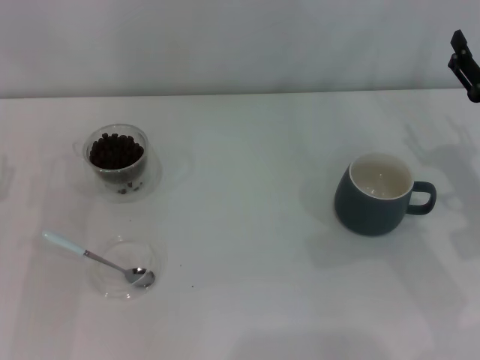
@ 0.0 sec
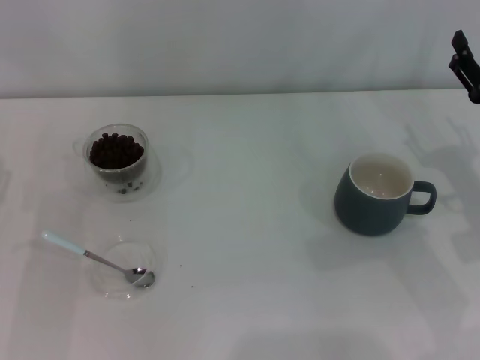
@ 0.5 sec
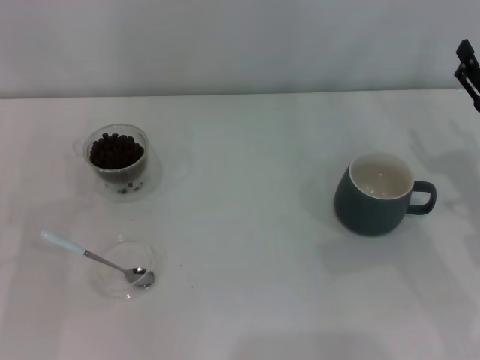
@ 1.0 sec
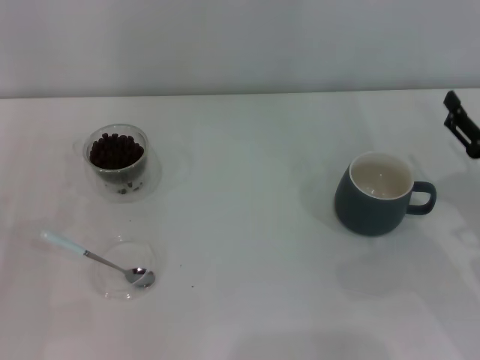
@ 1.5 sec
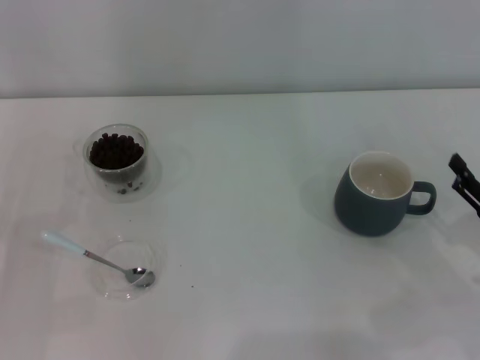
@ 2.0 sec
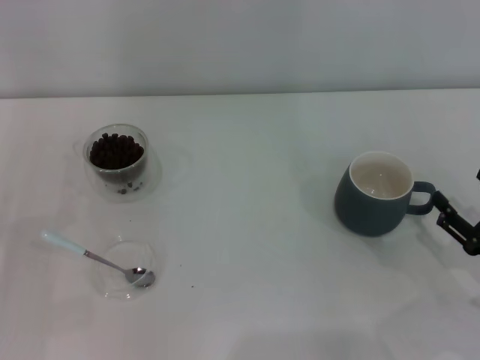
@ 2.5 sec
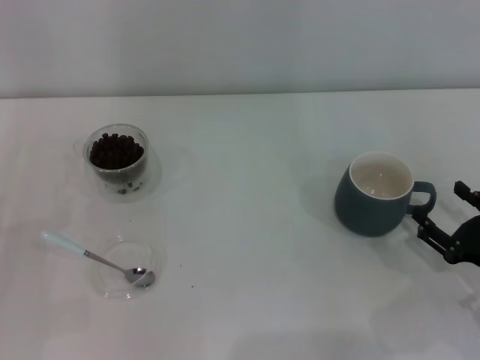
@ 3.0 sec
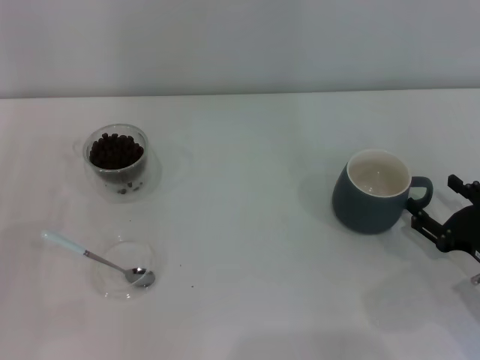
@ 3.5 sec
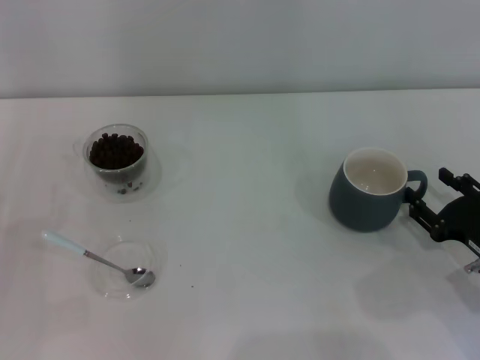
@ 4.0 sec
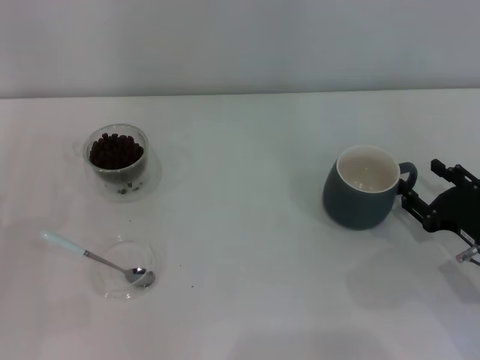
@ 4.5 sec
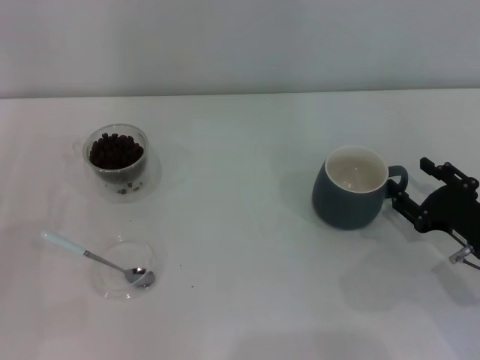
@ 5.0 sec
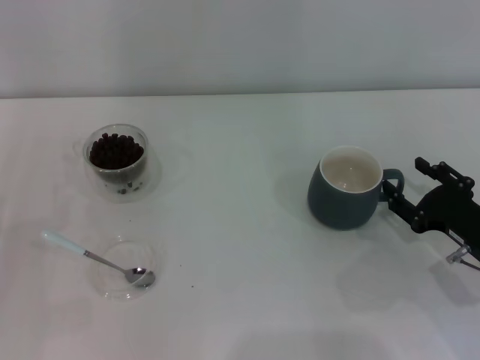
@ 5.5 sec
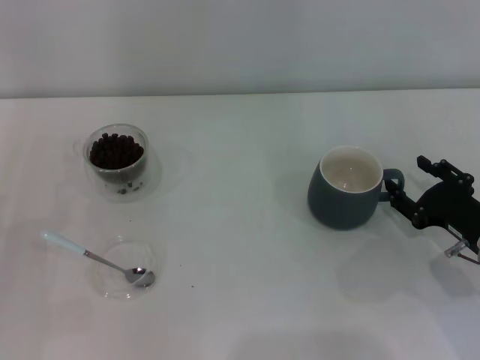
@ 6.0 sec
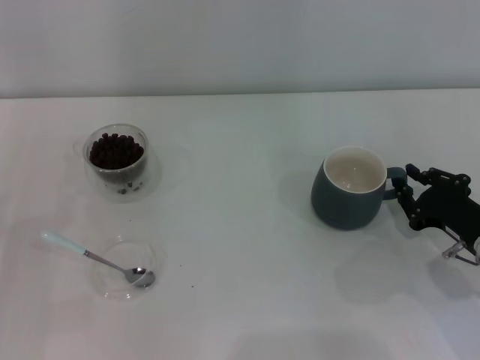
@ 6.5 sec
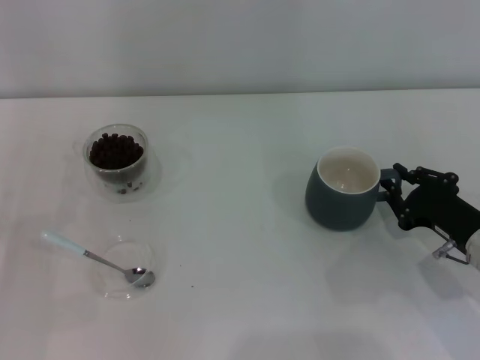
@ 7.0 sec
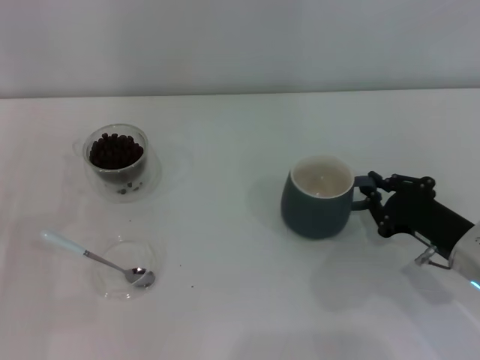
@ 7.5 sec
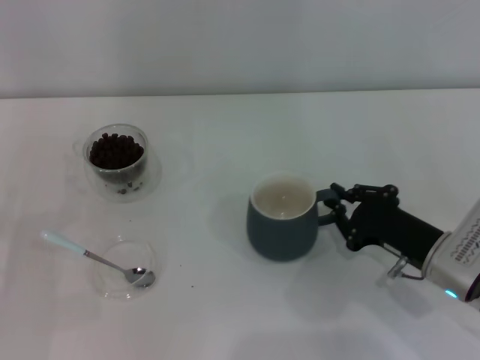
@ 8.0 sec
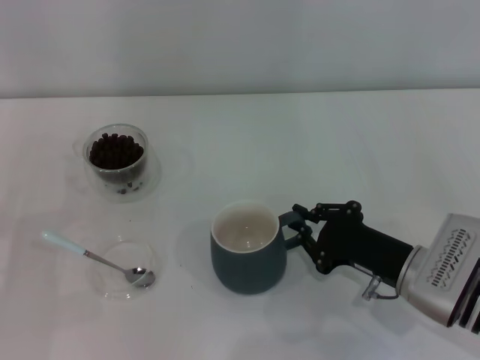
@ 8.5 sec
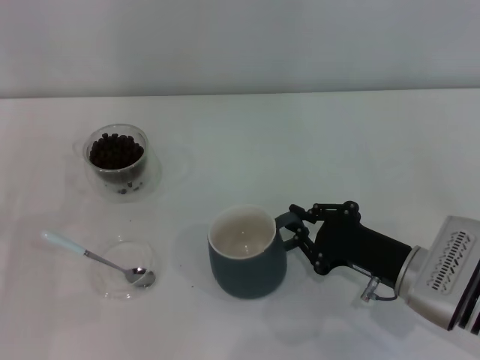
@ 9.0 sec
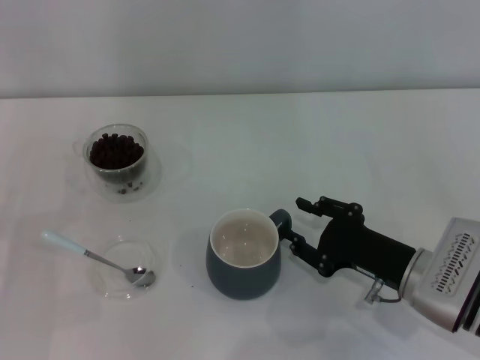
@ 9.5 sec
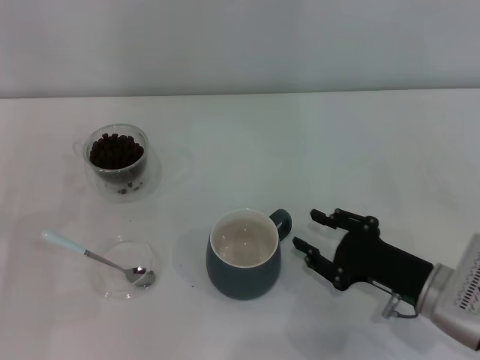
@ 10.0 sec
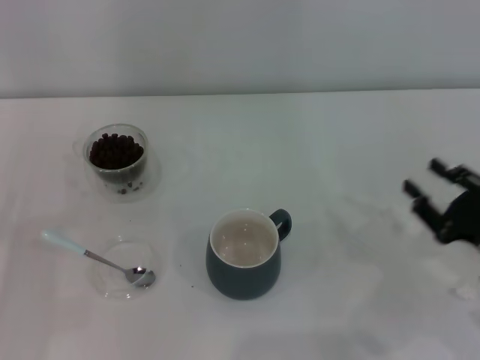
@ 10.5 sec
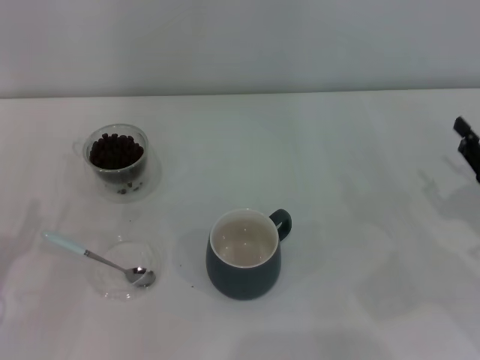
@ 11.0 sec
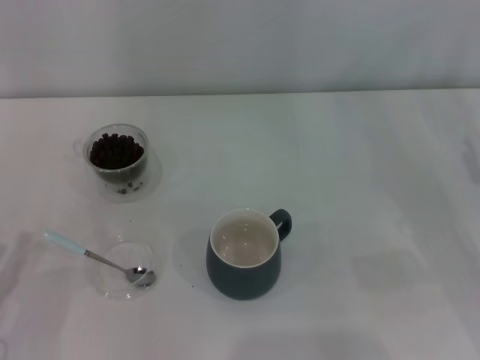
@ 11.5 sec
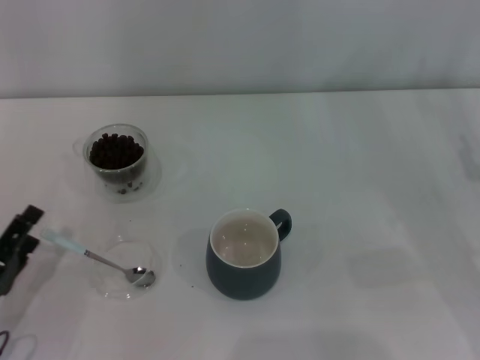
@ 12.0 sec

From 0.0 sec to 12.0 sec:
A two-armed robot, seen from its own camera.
Task of the whole recording: Use a blue spoon to take out the coffee beans from the glass and pour them into the gray cup.
Step, from 0.0 sec to 10.0 sec: Move the cup to the center of view with the left gripper.
From 0.0 sec to 2.0 sec: The right gripper goes approximately 10 cm backward.
From 2.0 sec to 4.0 sec: The grippers move only a little.
From 4.0 sec to 6.0 sec: There are only small adjustments of the grippers.
From 6.0 sec to 8.0 sec: The right gripper travels to the left by approximately 5 cm, and closes.
From 8.0 sec to 10.0 sec: The right gripper opens.
From 10.0 sec to 12.0 sec: The right gripper moves to the right and upward, roughly 15 cm; the left gripper changes place by some 10 cm.

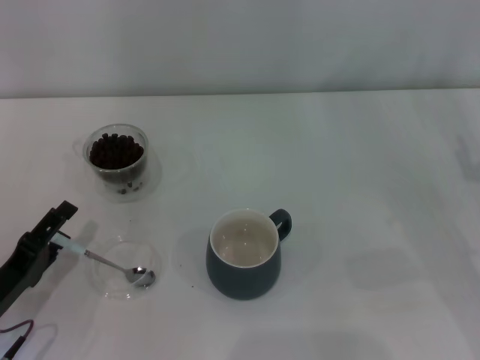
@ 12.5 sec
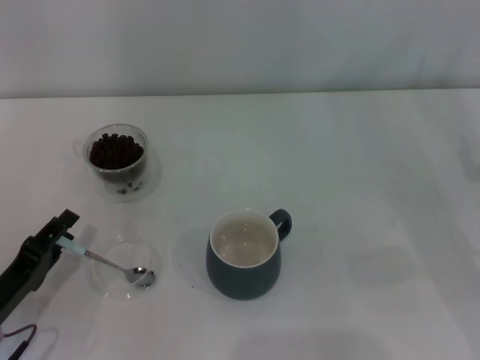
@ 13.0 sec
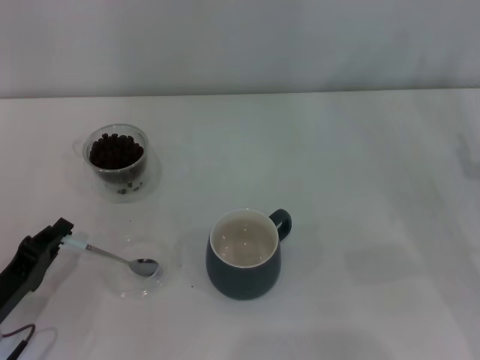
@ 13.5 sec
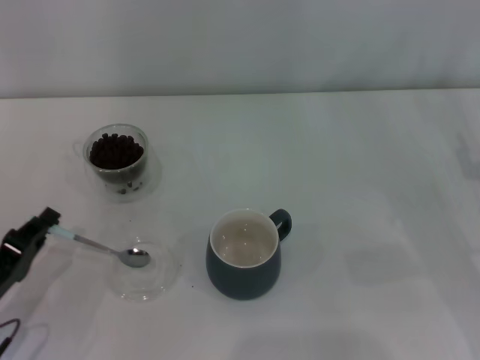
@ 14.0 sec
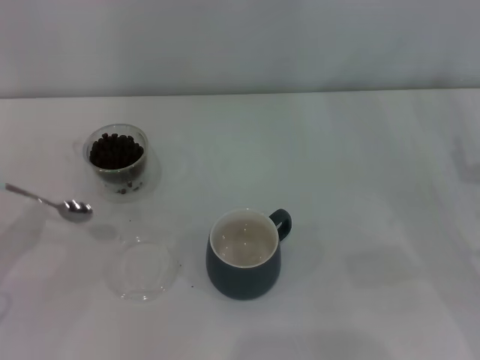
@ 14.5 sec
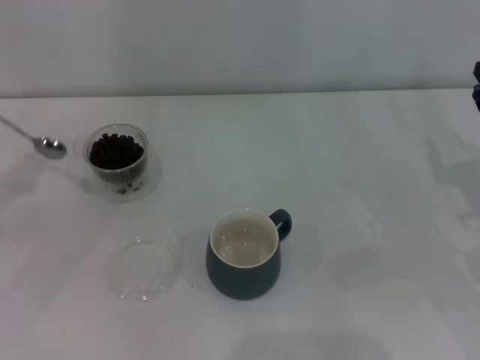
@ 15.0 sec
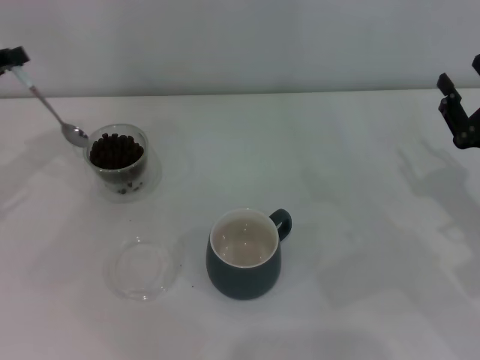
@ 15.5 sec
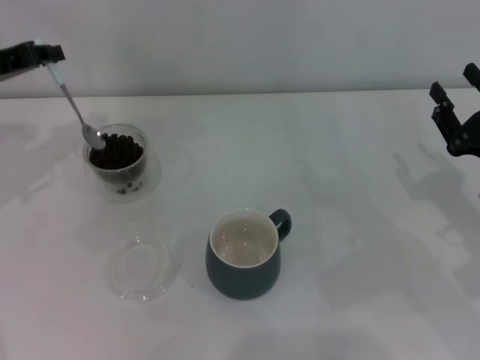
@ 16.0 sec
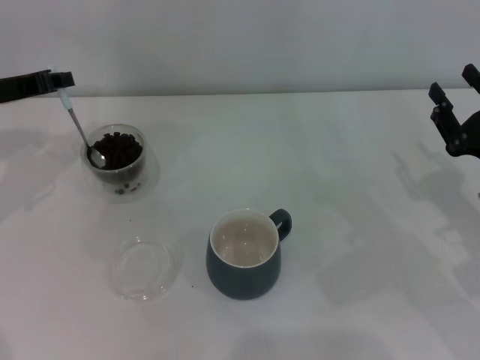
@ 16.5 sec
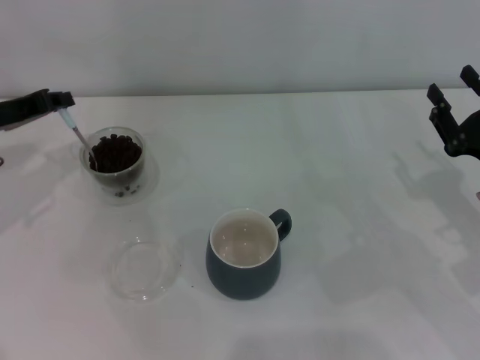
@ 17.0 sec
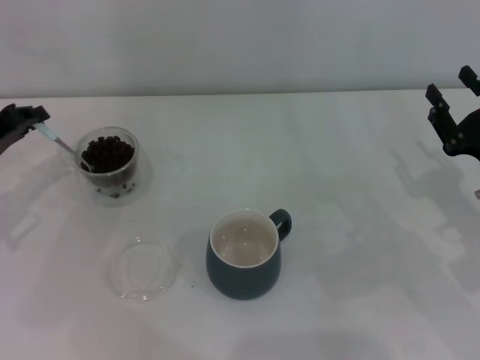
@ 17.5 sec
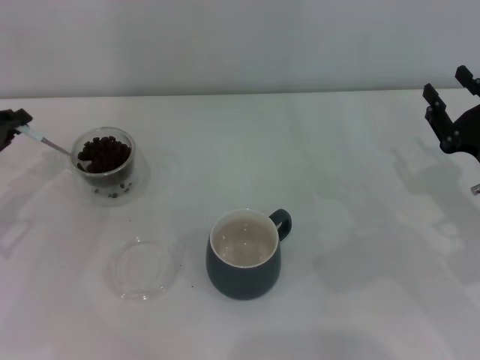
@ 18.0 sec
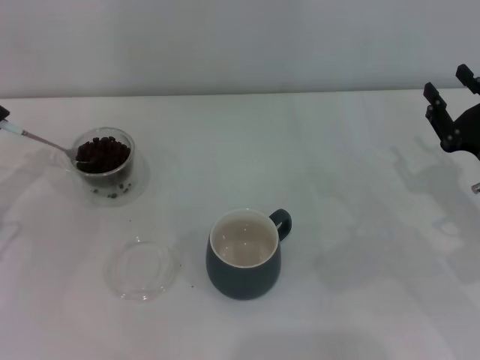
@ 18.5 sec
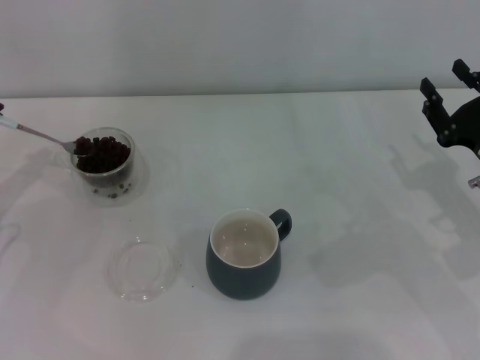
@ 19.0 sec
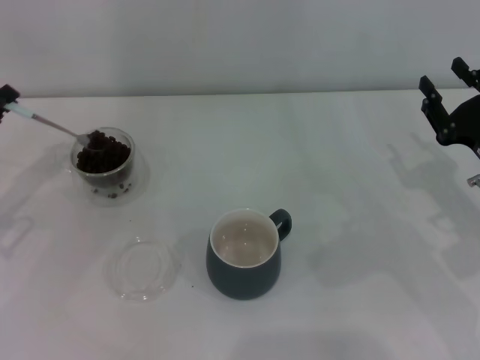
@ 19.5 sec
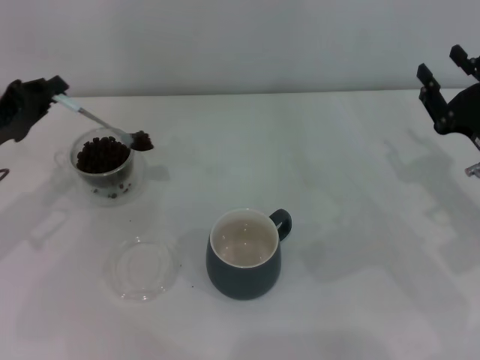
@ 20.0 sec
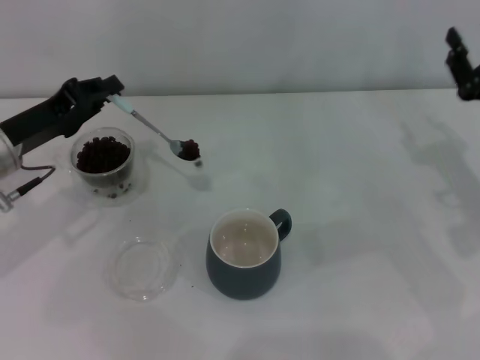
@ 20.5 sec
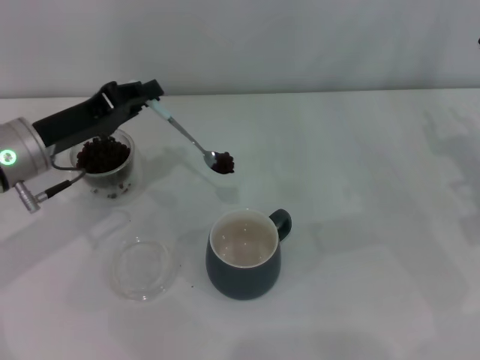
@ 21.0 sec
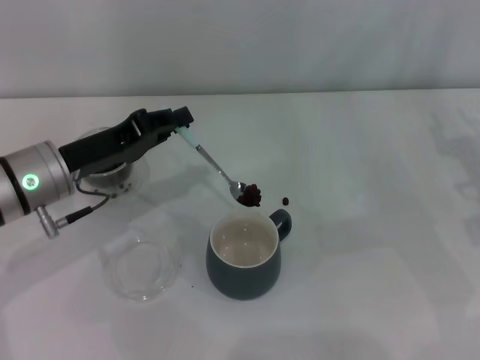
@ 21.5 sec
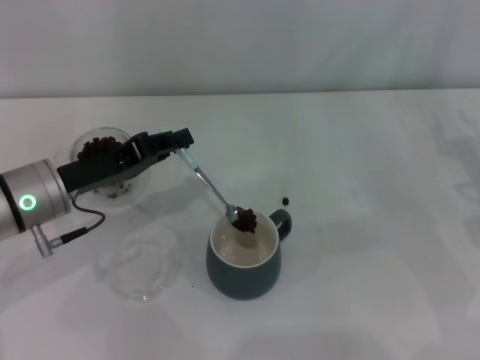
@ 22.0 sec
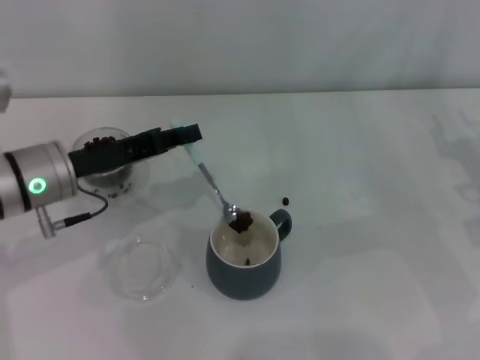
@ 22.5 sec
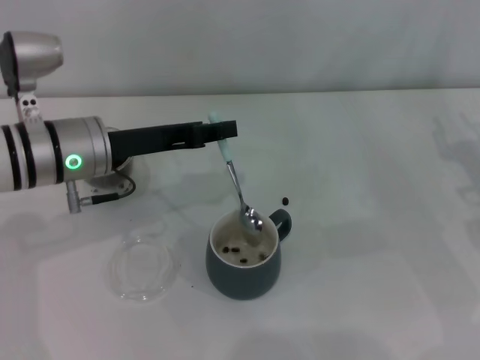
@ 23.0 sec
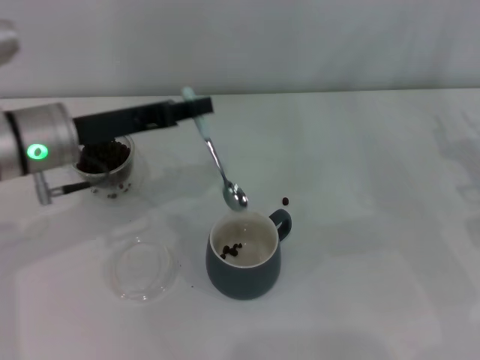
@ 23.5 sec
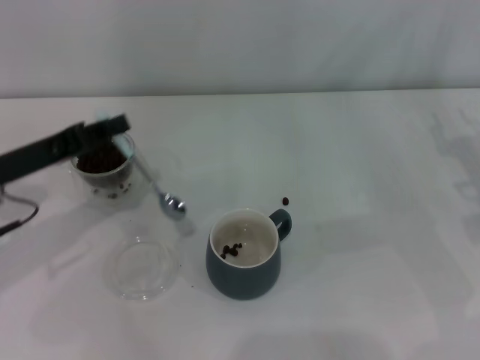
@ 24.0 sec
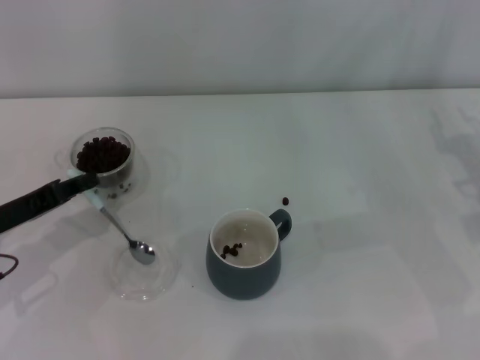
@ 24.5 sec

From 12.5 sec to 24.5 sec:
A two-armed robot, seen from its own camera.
Task of the whole recording: Use a blue spoon to take out the coffee beans from the glass and pour them into the gray cup.
Step, from 14.5 sec to 23.0 sec: Scoop a spoonful of beans into the cup with the right gripper.
From 12.5 sec to 14.5 sec: The left gripper heads upward and to the left, covering about 10 cm, and closes.
From 14.5 sec to 16.5 sec: The left gripper moves forward and upward, some 20 cm.
From 16.5 sec to 18.5 sec: The left gripper shifts some 10 cm backward, downward and to the left.
From 18.5 sec to 20.5 sec: The left gripper moves to the right, approximately 10 cm.
From 20.5 sec to 22.5 sec: The left gripper moves to the right, some 5 cm.
From 22.5 sec to 24.5 sec: The left gripper travels to the left by some 10 cm.

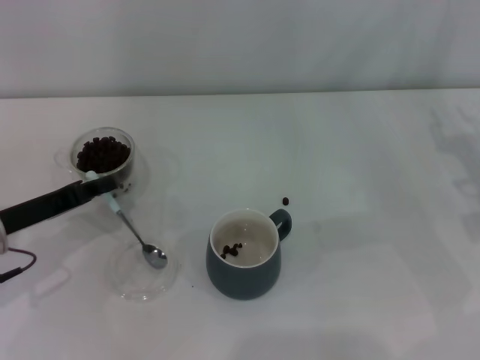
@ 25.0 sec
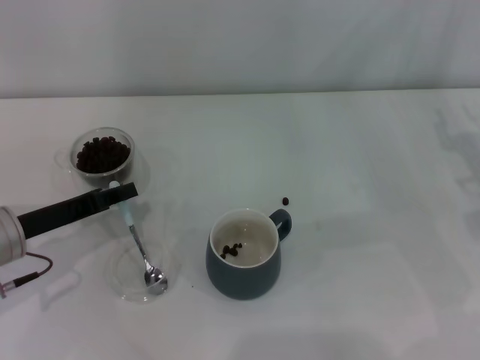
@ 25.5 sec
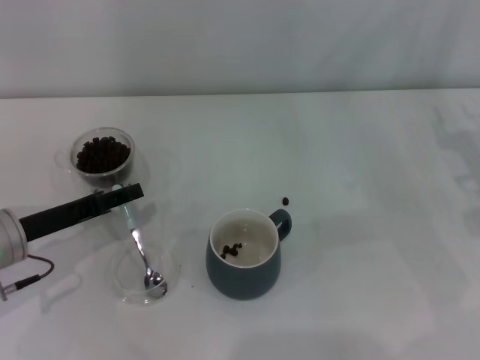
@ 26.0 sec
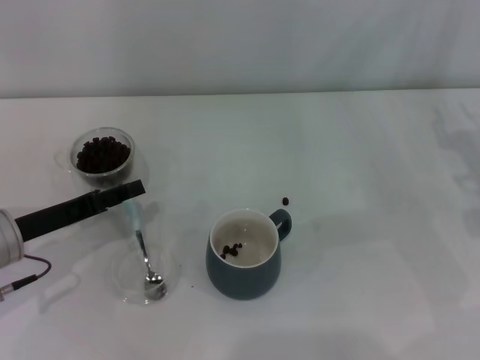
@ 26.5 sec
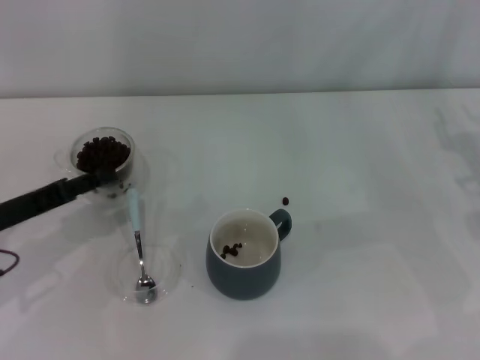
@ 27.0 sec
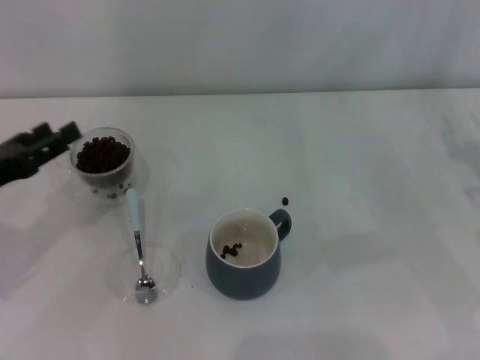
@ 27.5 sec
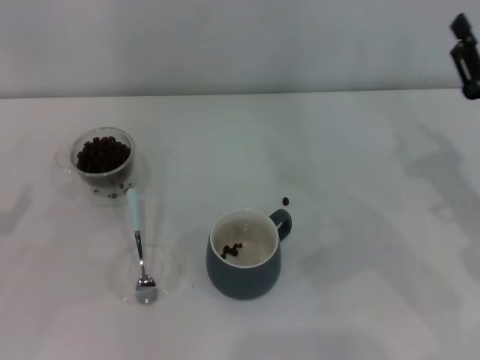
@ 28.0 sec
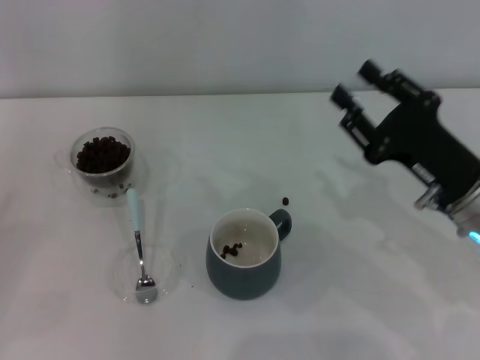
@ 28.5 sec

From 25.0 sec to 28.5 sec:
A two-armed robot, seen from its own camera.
Task of the whole recording: Use a blue spoon to take out the coffee beans from the glass and pour them into the gray cup.
From 25.0 sec to 27.0 sec: The left gripper opens up.
From 27.0 sec to 28.5 sec: The right gripper travels to the left by some 10 cm. Meanwhile the left gripper moves to the left and backward, roughly 15 cm.
